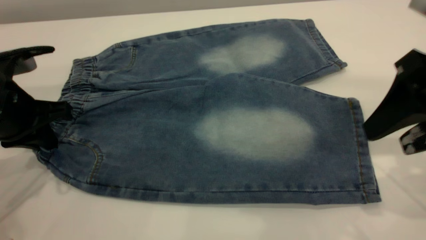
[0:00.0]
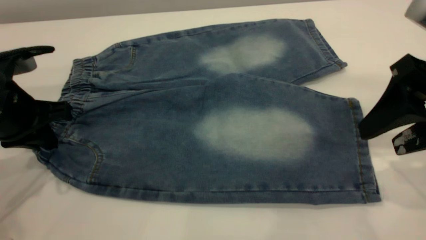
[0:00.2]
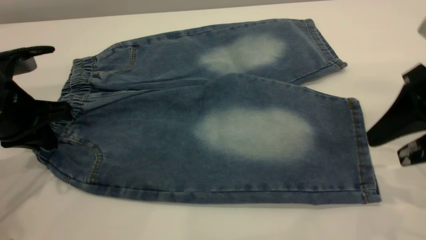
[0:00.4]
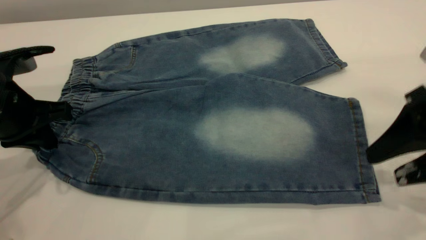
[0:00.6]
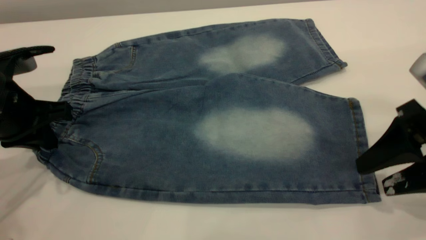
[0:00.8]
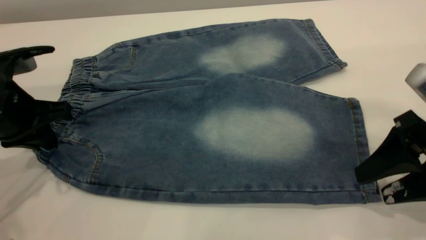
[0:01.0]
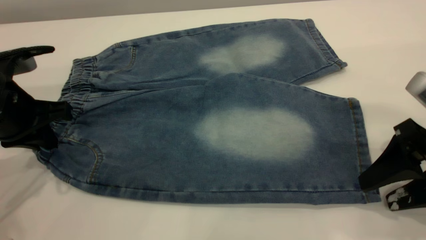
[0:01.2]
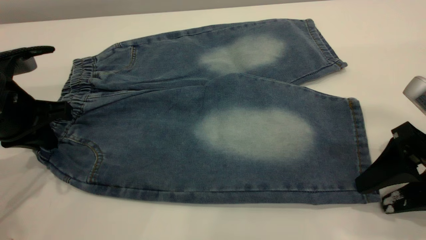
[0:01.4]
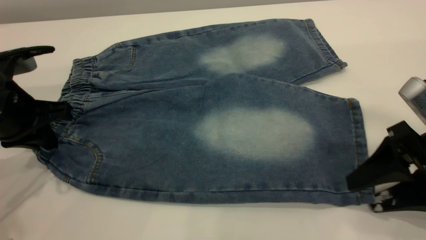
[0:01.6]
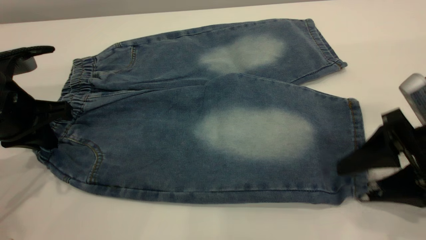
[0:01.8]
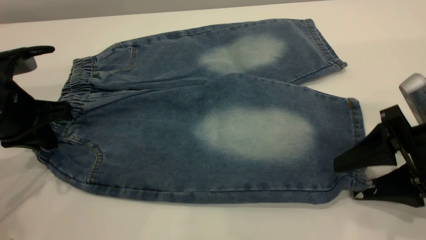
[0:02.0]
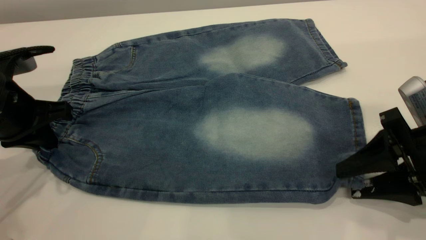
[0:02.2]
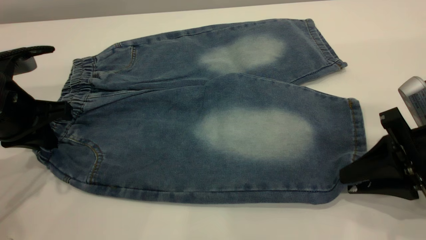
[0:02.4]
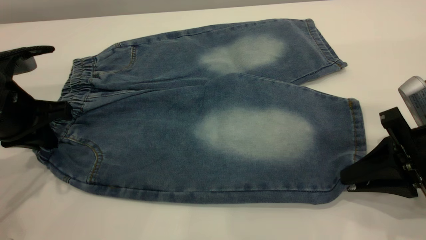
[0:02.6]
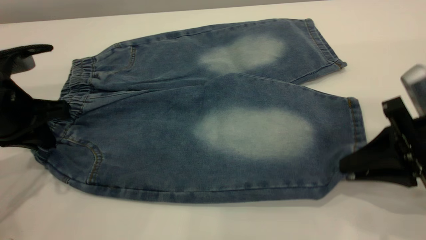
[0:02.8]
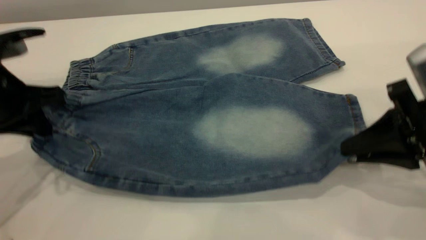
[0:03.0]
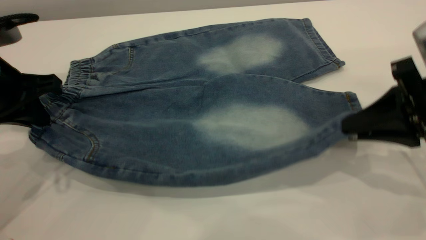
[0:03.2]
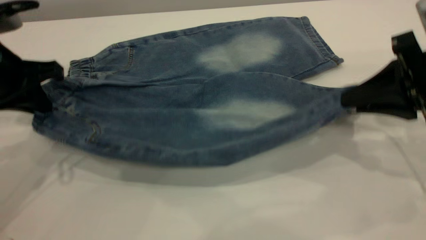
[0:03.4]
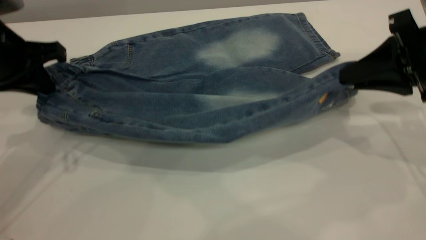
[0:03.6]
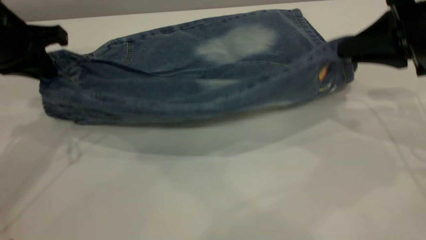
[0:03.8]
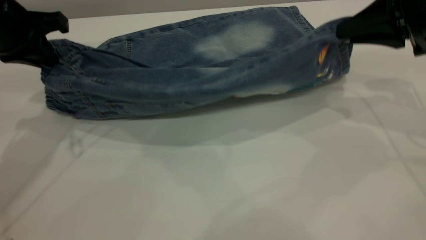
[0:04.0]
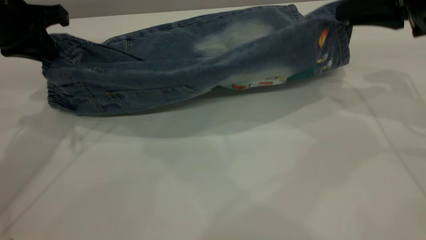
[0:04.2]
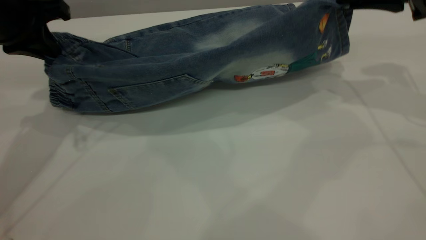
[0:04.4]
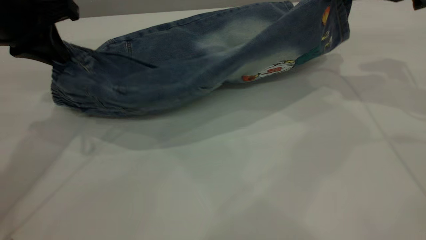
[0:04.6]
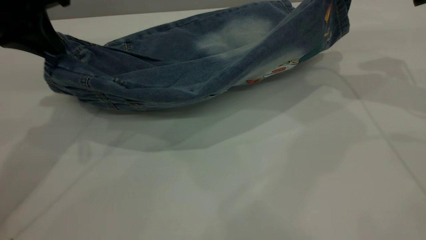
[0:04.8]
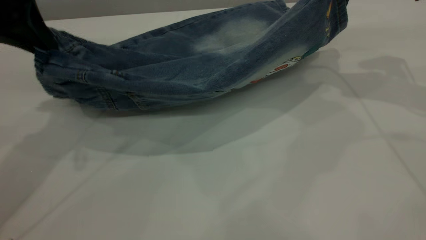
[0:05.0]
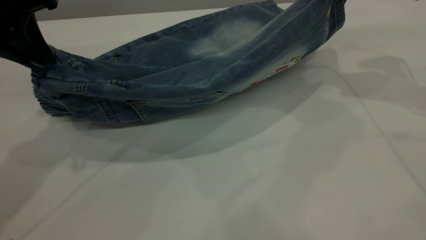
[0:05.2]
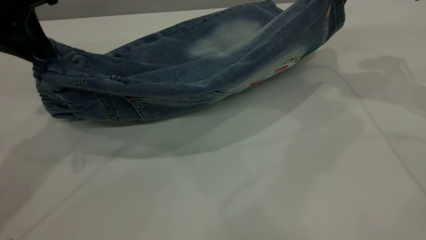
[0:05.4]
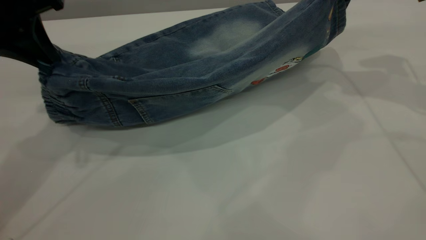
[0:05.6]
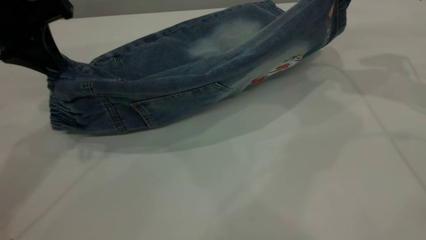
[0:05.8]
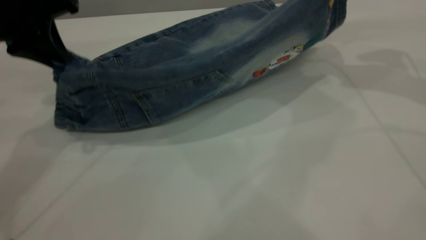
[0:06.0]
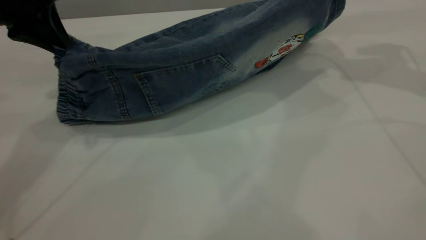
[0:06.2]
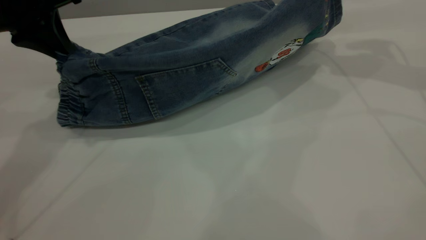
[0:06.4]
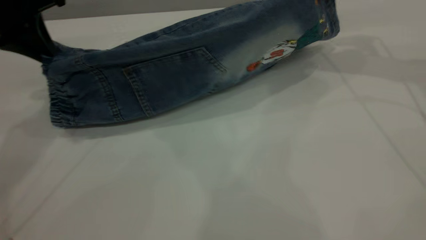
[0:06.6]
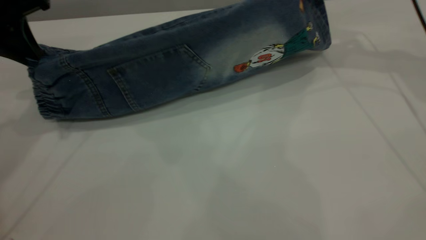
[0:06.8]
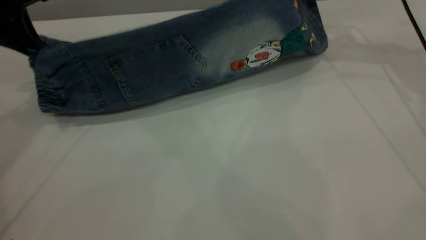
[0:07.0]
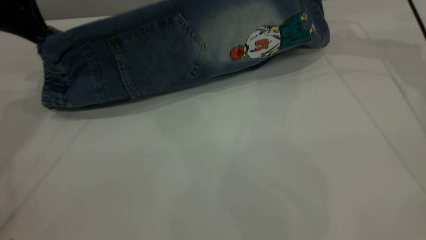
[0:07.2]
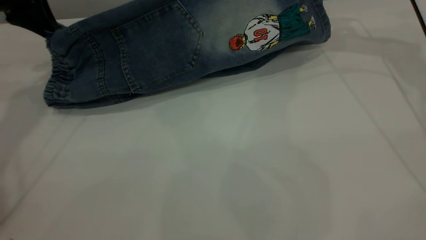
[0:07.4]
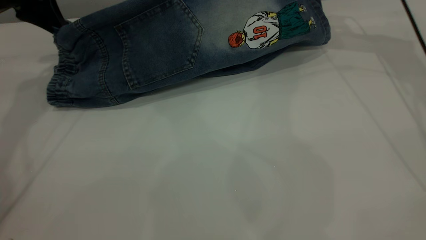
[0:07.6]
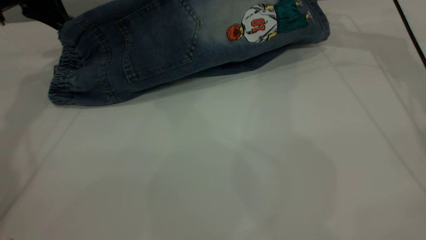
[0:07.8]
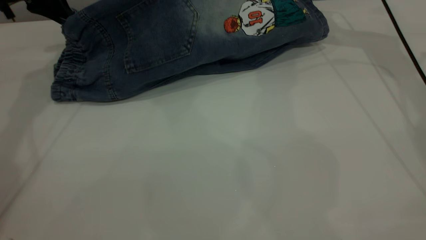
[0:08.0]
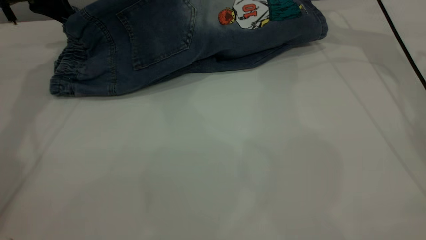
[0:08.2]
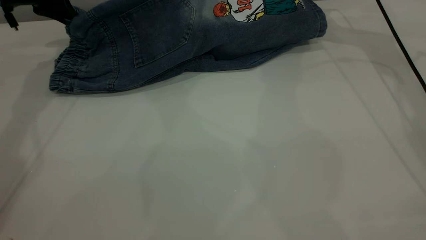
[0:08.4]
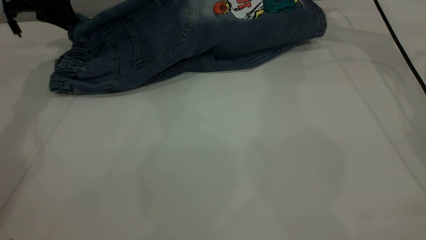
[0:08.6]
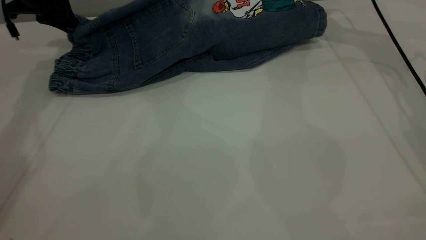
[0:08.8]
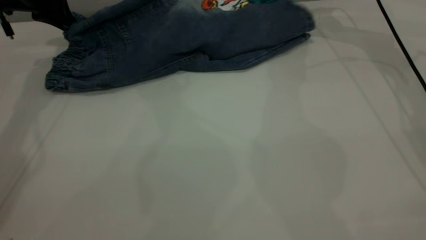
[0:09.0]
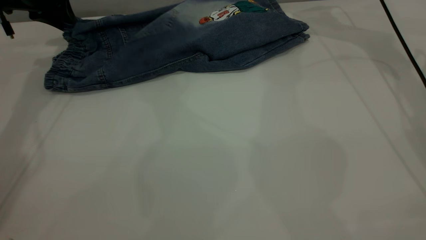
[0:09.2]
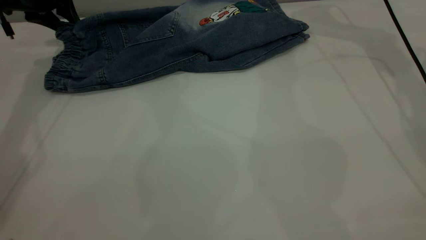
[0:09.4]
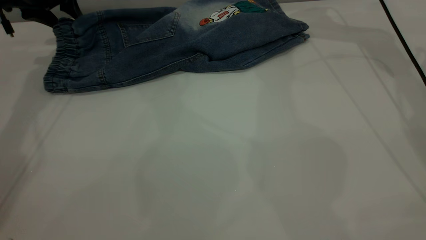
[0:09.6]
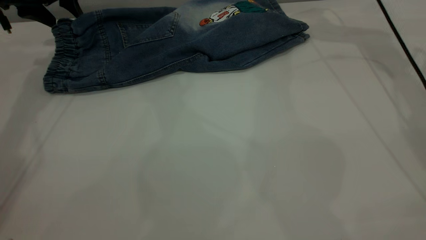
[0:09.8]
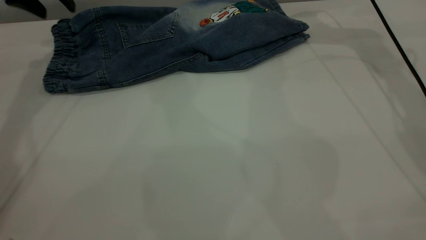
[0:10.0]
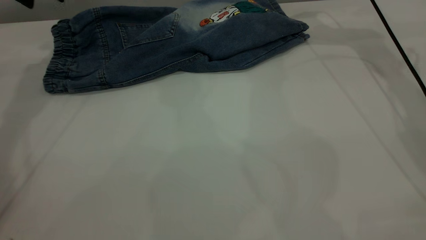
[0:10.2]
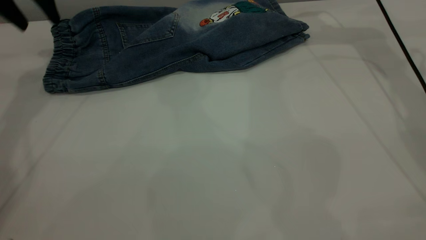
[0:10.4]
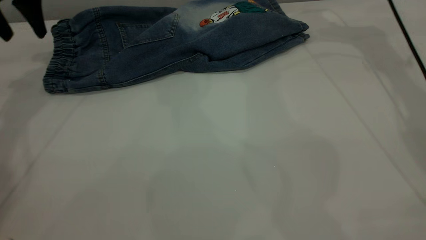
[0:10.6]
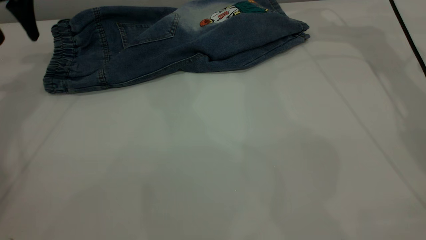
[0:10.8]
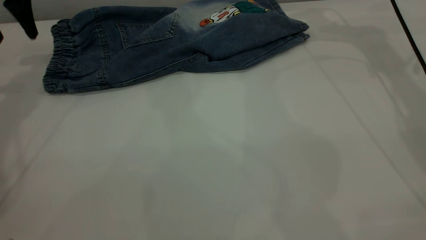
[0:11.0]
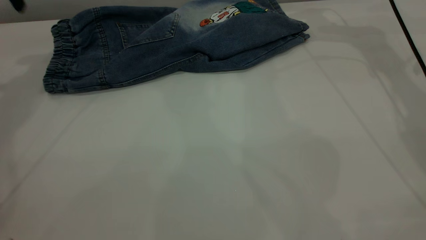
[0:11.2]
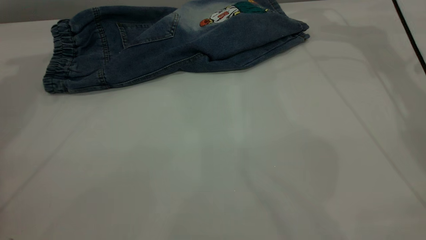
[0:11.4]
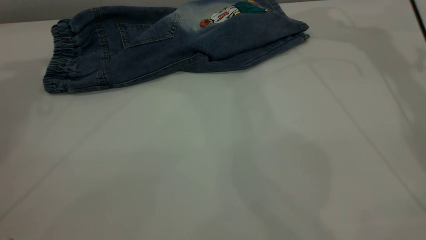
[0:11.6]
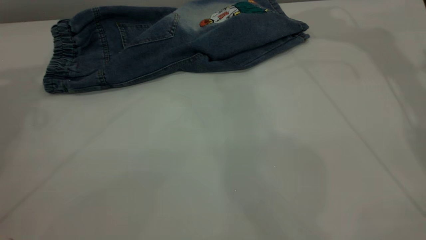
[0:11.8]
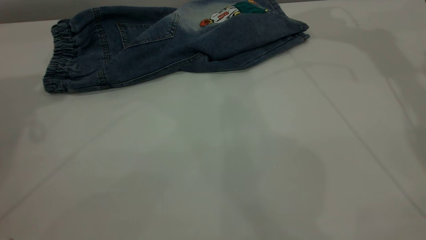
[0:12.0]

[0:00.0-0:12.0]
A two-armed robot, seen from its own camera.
Step, 0:00.0 to 0:10.4: Fold the bottom of the pants upward.
0:00.0 to 0:01.6: The right gripper heads downward, covering roughly 10 cm.
0:01.6 to 0:03.0: The right gripper closes its fingers.
0:03.0 to 0:04.4: The right gripper heads forward and upward, covering some 20 cm. Meanwhile the left gripper moves forward and upward, approximately 10 cm.
0:04.4 to 0:06.0: There are only small adjustments of the grippers.
0:06.0 to 0:07.6: The right gripper shifts about 15 cm forward. The left gripper shifts some 15 cm forward and to the left.
0:07.6 to 0:09.0: The right gripper changes place by roughly 5 cm, and opens, while the left gripper ends up about 5 cm from where it was.
0:09.0 to 0:10.4: The right gripper changes place by some 5 cm; the left gripper heads upward, covering some 5 cm, and opens.
0:10.4 to 0:12.0: The left gripper shifts approximately 15 cm upward and backward.

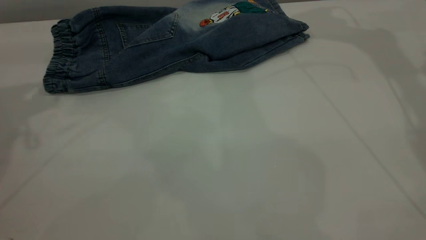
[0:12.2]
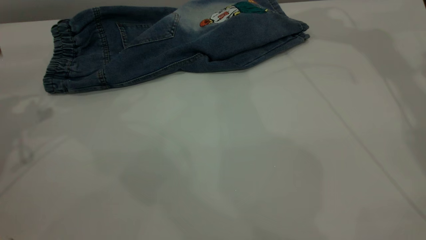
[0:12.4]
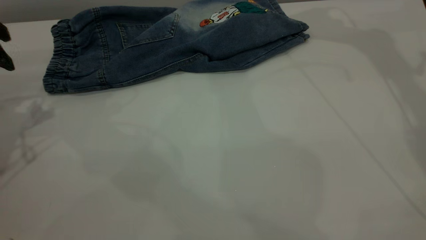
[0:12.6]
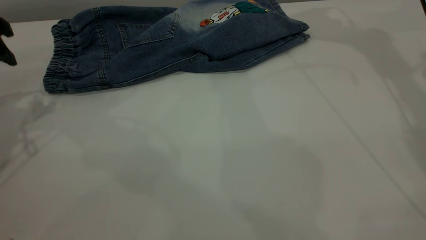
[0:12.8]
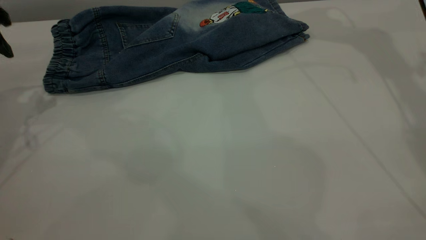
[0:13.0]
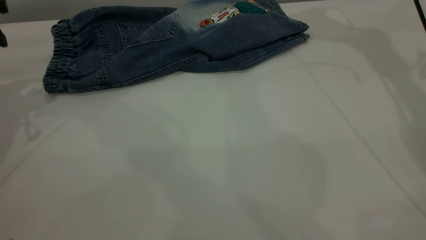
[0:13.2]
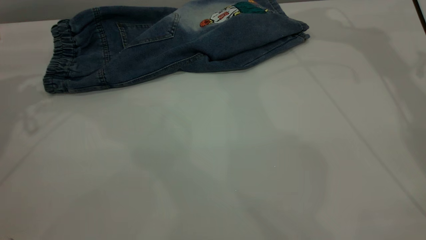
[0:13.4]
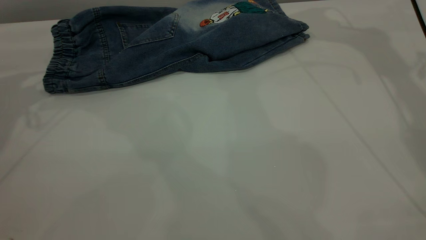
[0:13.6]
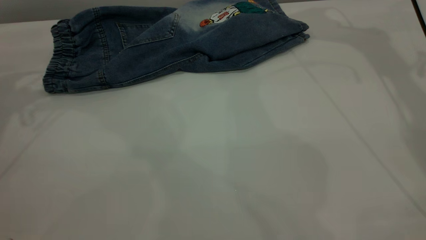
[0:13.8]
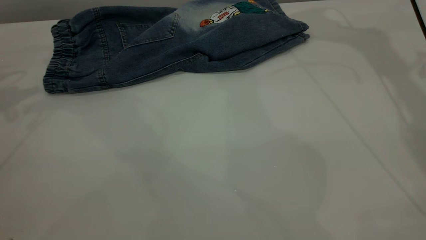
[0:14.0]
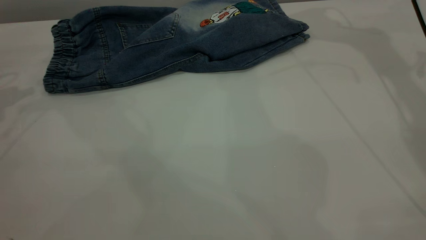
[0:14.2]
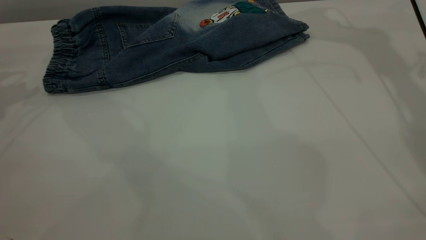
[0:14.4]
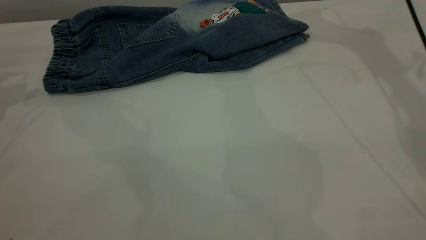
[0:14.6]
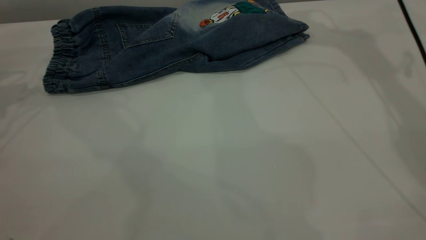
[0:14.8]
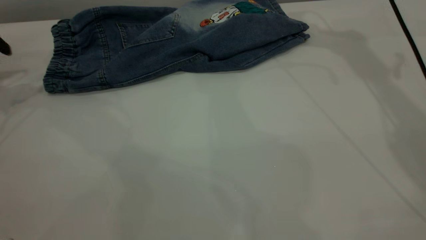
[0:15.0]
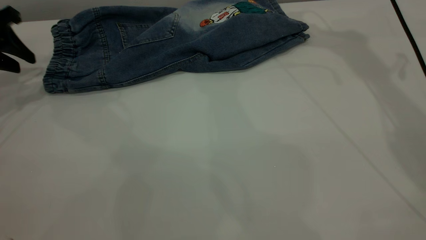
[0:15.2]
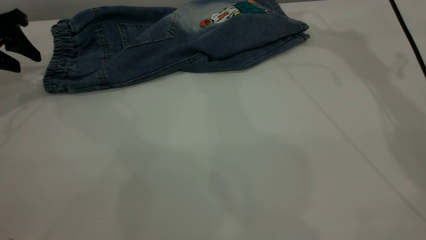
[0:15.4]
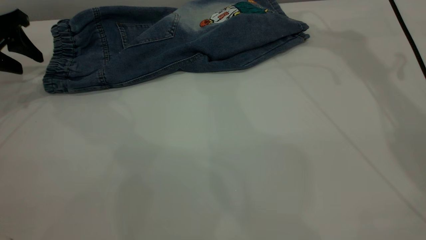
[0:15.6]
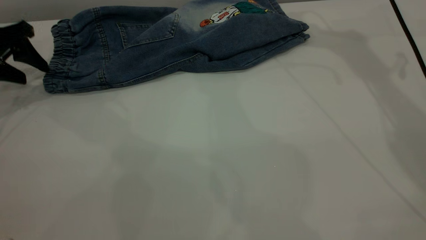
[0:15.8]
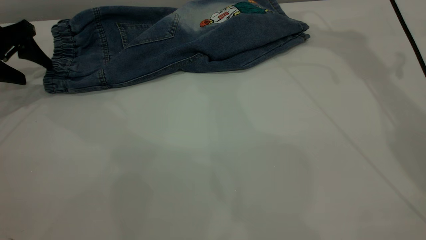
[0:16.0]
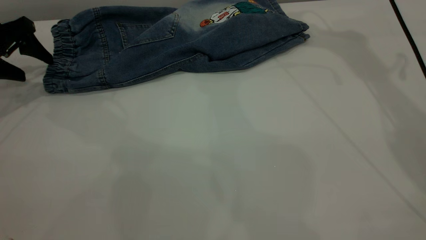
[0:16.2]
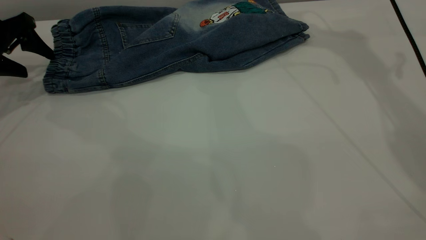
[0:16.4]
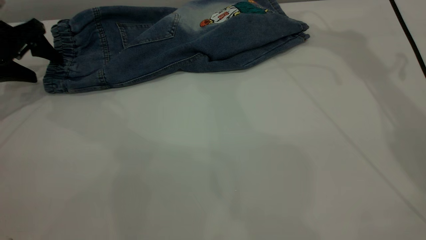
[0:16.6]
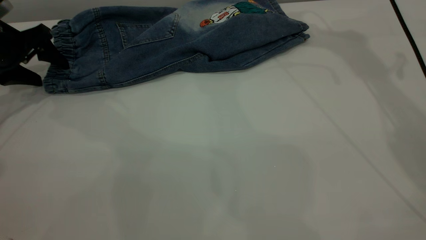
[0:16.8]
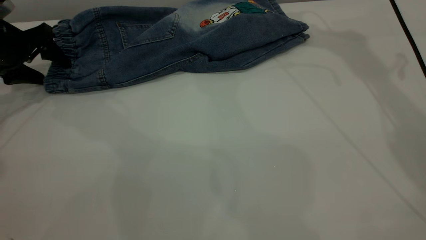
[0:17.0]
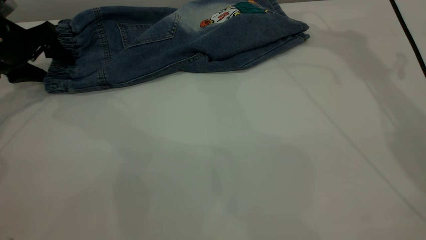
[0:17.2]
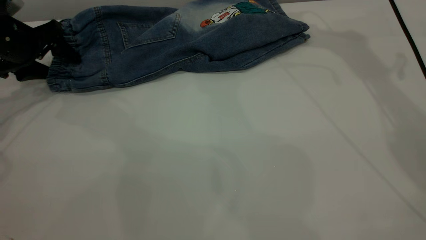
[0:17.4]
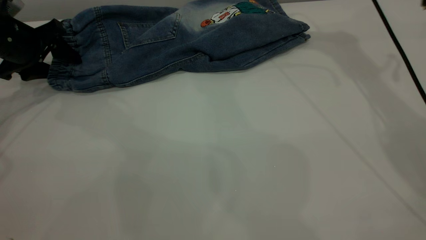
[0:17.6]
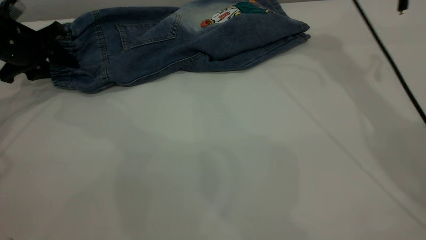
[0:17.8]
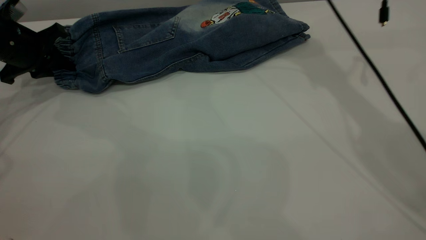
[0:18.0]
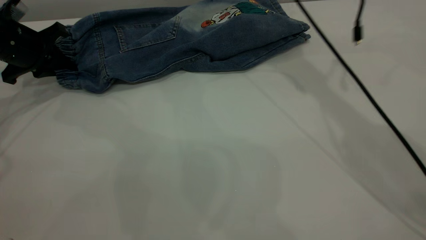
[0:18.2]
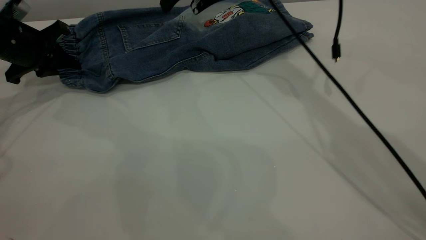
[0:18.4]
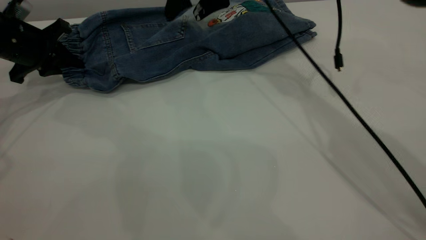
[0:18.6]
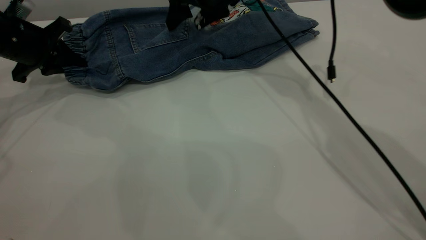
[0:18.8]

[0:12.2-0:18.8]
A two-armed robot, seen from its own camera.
0:13.8 to 0:15.4: The left gripper travels downward by roughly 5 cm.
0:15.4 to 0:17.2: The left gripper shifts by some 5 cm.
0:17.2 to 0:18.8: The right gripper is displaced to the left and downward by some 20 cm. The left gripper closes its fingers.
